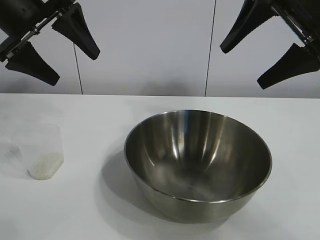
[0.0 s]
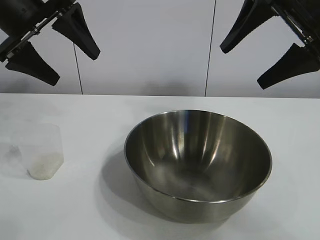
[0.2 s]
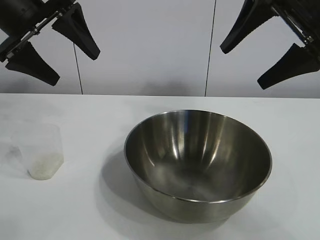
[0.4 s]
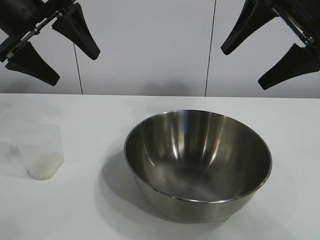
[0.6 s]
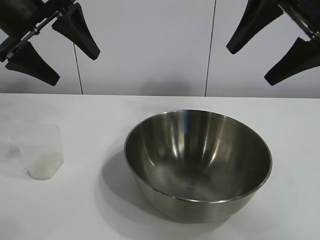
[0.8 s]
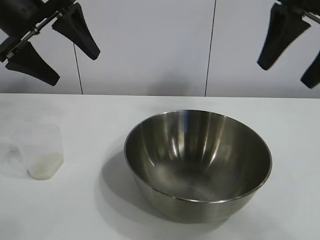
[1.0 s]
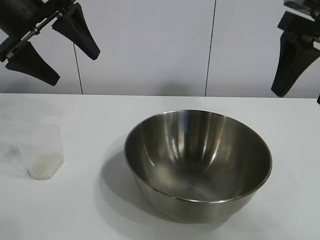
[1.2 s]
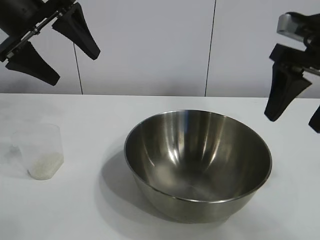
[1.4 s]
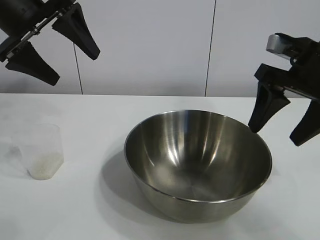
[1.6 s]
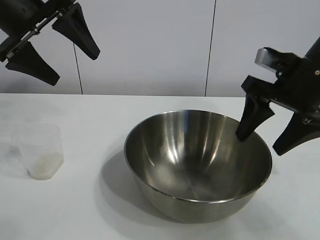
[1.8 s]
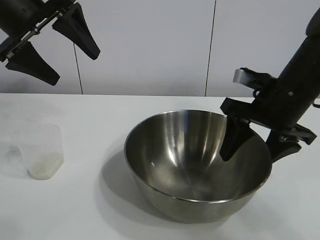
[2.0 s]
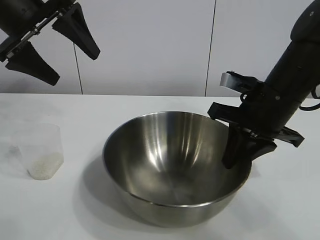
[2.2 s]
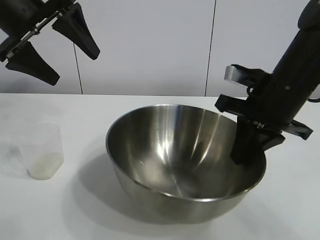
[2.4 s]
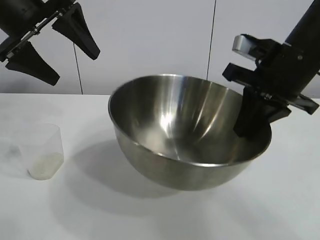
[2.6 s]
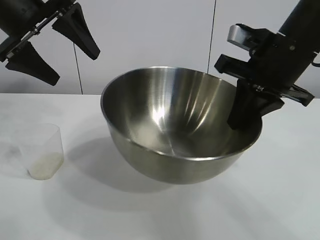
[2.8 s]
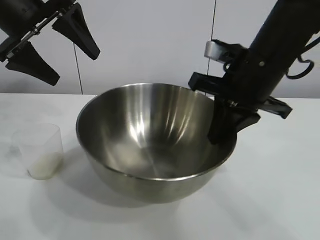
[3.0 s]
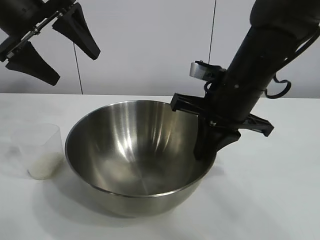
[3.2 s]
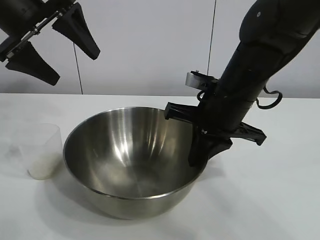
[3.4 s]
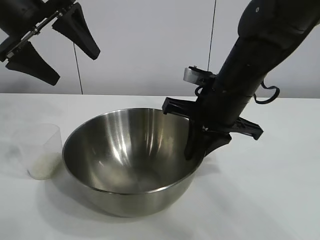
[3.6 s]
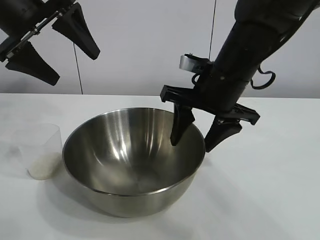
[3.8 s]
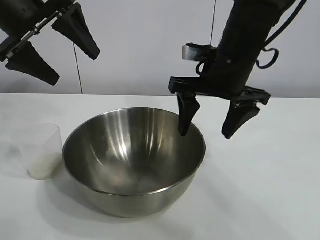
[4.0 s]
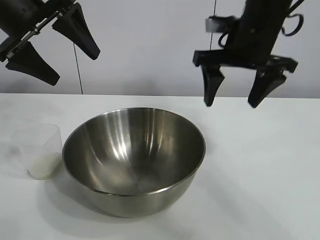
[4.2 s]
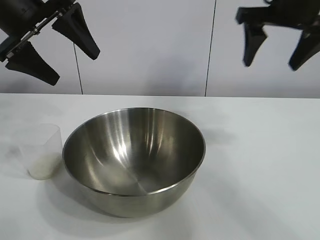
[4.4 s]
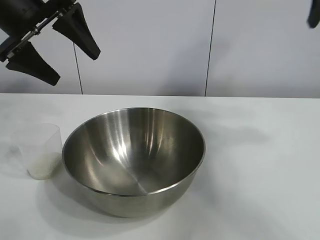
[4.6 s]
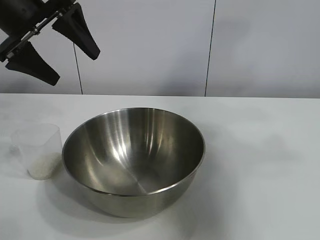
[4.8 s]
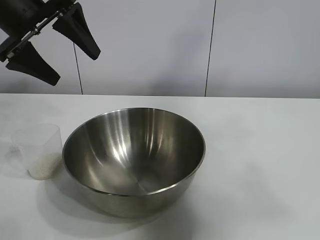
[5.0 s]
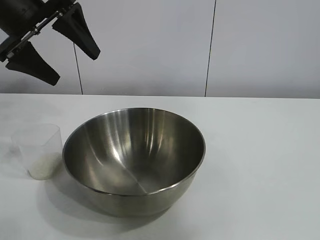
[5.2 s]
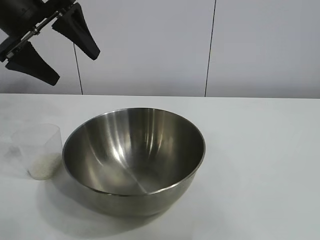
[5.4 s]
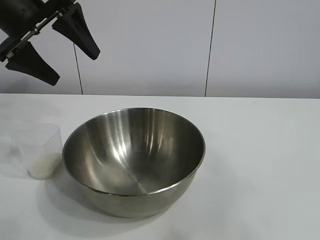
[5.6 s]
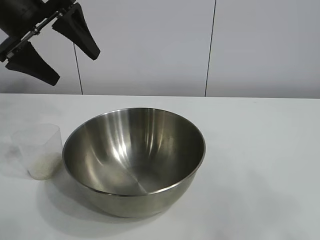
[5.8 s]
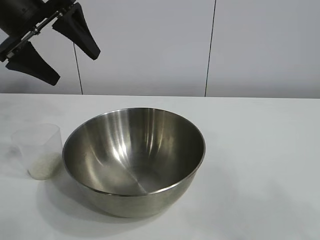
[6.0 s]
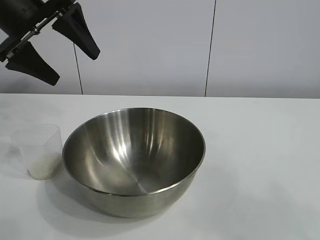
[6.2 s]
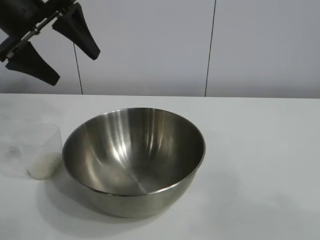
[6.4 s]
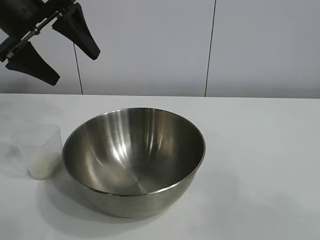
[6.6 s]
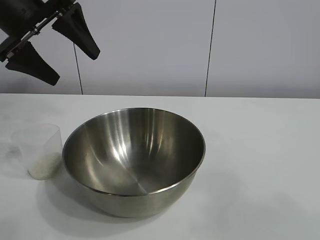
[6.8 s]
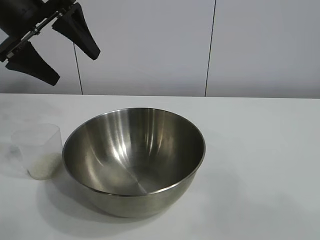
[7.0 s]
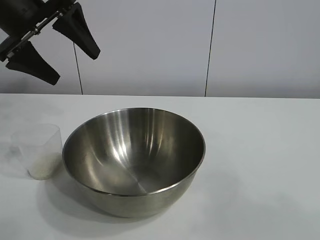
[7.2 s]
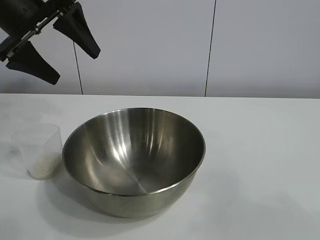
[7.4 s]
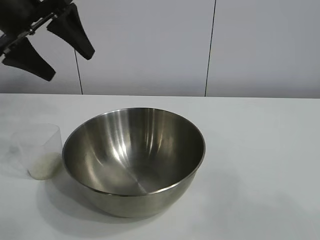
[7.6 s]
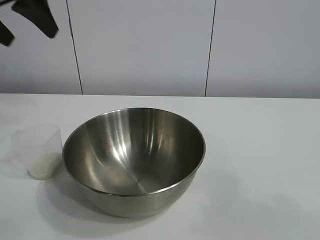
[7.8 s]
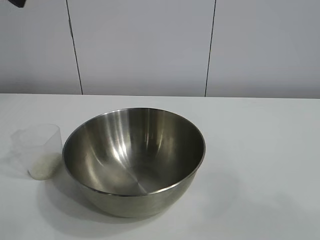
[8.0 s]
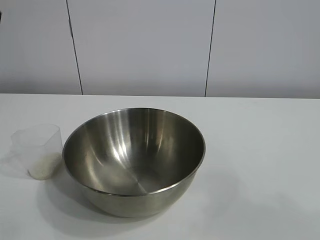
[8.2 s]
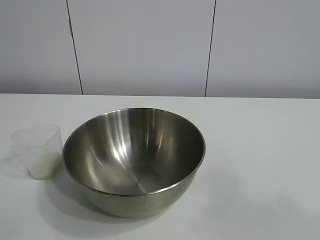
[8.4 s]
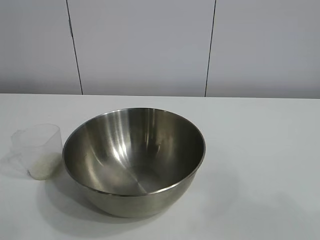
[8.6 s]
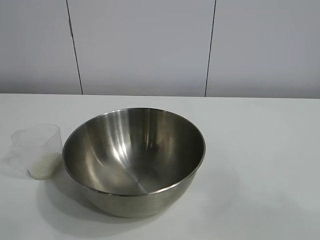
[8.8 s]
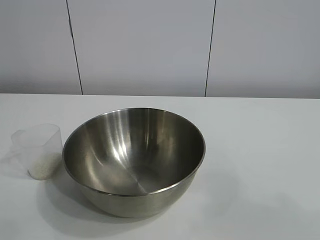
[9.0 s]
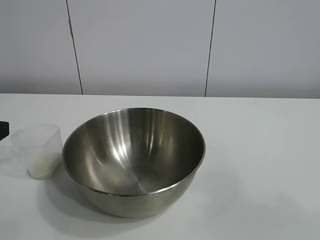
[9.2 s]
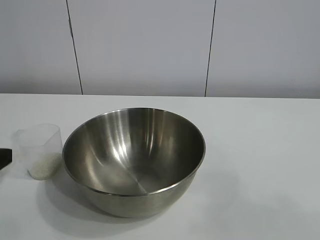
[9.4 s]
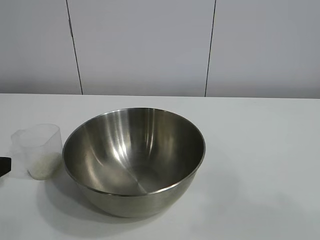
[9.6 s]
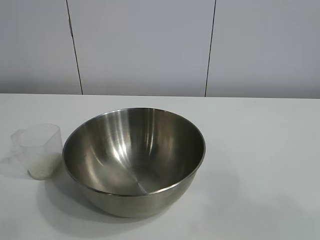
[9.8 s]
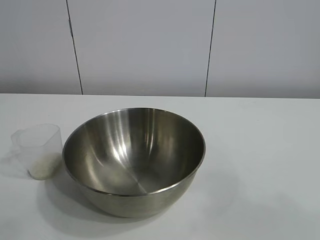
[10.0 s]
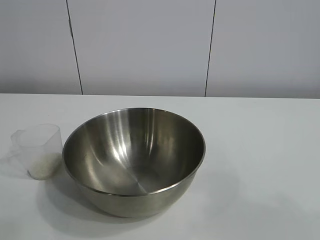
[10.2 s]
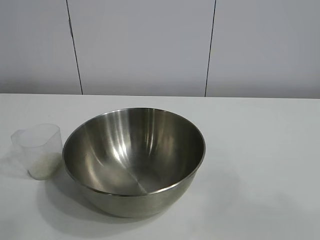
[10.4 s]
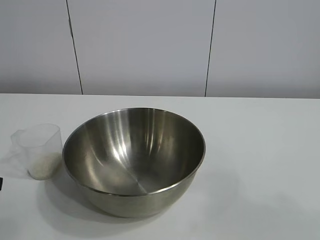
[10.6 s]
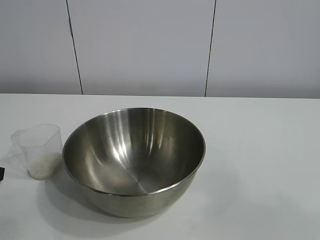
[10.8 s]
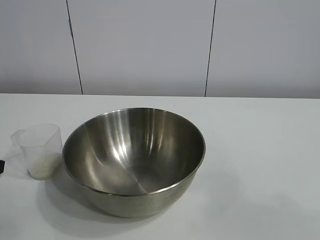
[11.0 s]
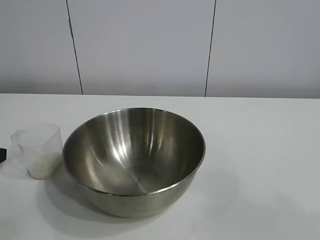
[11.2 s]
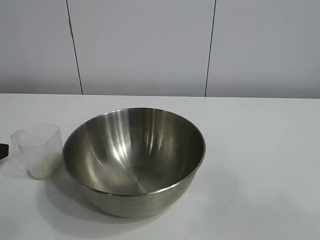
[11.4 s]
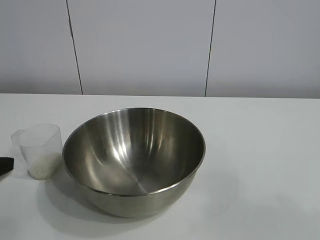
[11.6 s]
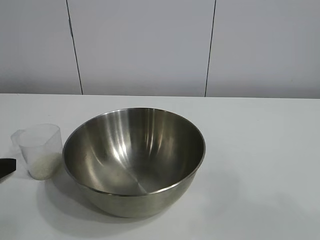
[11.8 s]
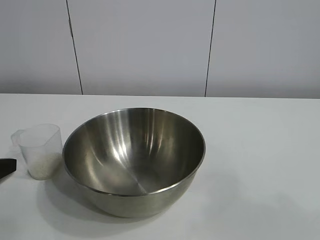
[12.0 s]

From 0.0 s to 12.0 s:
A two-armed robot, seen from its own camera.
Task of the whole recording: the right gripper grasp the rice container and place it in the center of the table, the left gripper grasp the rice scoop and pour the rice into the rice container.
Step, from 0.8 s to 3.8 s: Move the bowl in the center of view with right gripper.

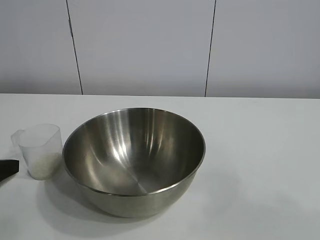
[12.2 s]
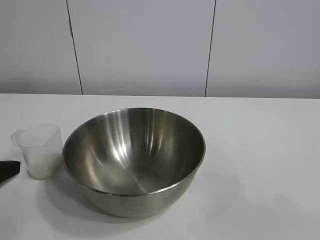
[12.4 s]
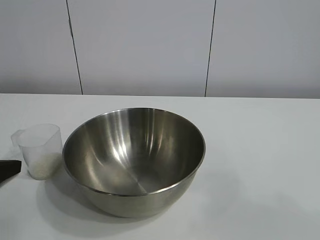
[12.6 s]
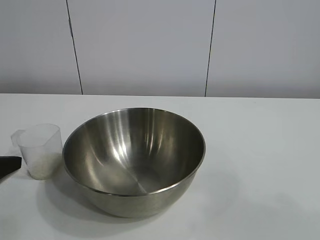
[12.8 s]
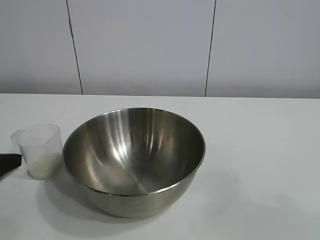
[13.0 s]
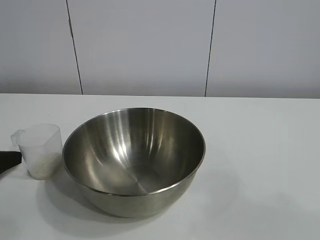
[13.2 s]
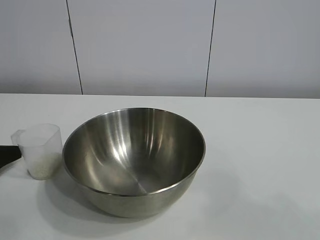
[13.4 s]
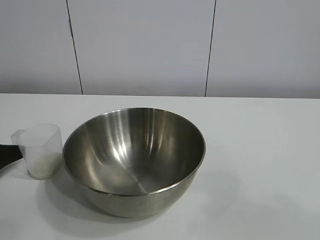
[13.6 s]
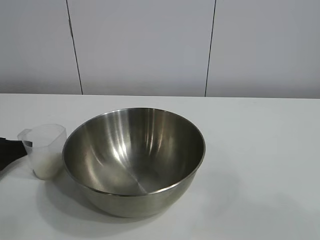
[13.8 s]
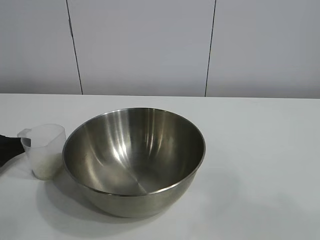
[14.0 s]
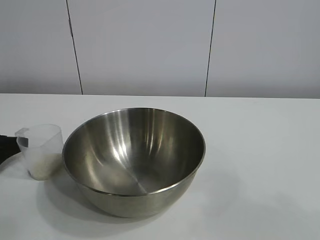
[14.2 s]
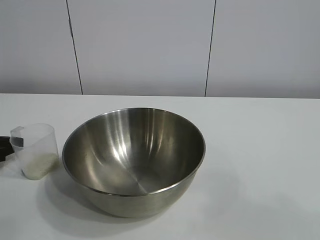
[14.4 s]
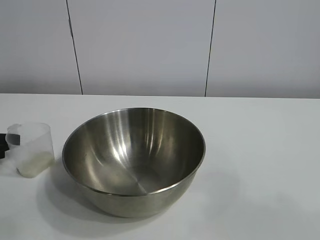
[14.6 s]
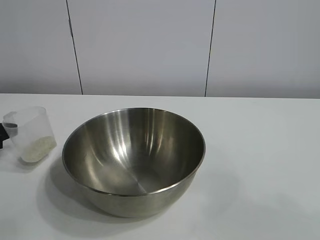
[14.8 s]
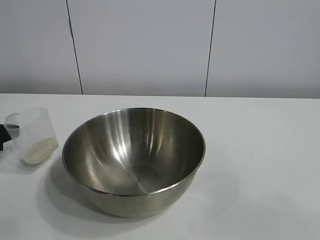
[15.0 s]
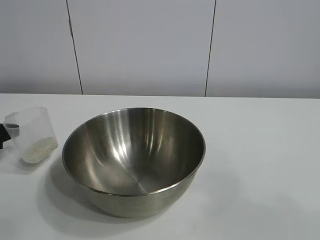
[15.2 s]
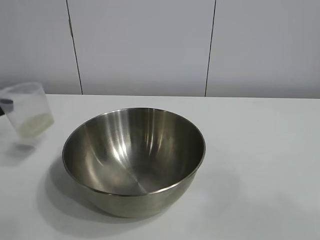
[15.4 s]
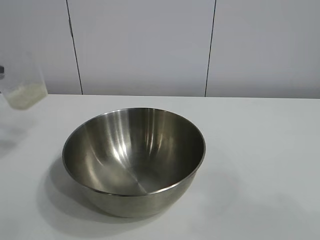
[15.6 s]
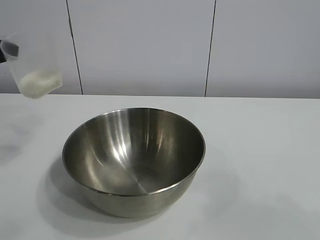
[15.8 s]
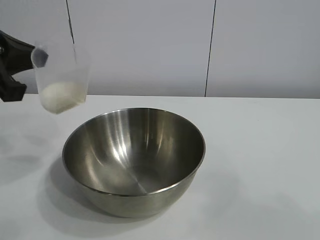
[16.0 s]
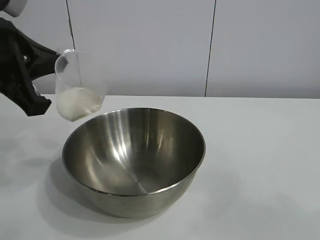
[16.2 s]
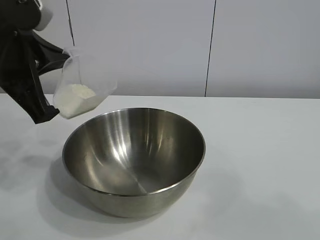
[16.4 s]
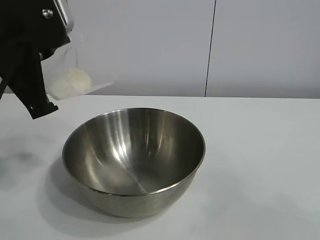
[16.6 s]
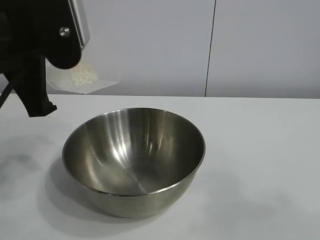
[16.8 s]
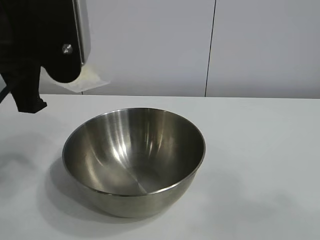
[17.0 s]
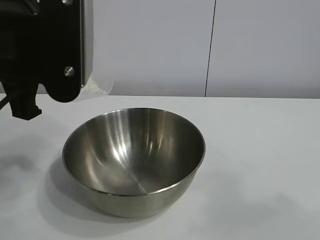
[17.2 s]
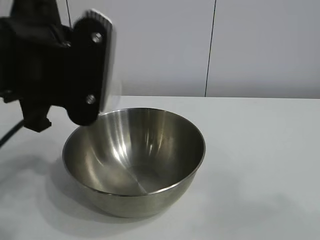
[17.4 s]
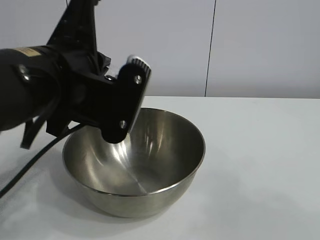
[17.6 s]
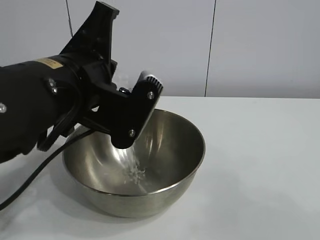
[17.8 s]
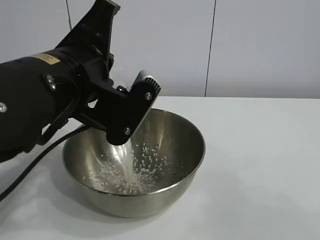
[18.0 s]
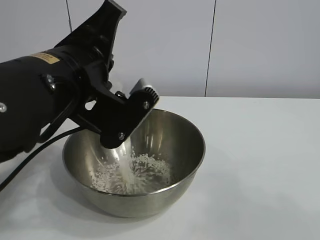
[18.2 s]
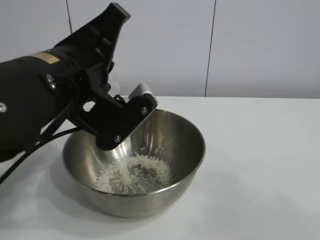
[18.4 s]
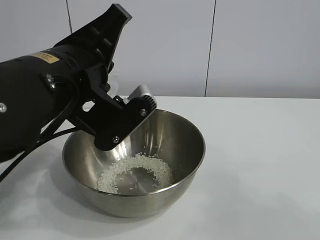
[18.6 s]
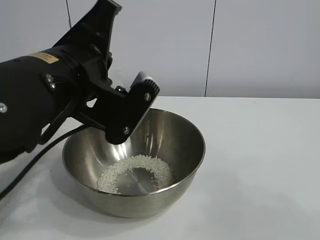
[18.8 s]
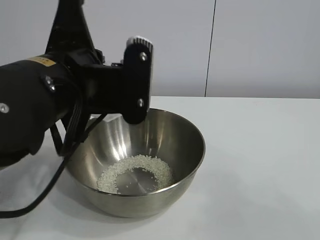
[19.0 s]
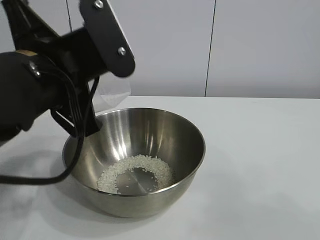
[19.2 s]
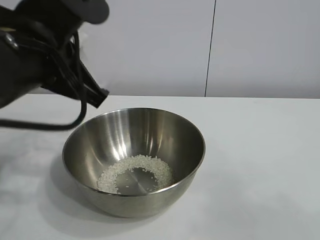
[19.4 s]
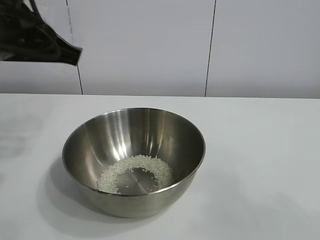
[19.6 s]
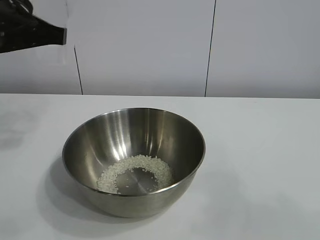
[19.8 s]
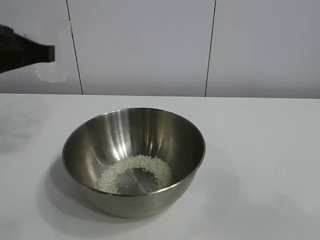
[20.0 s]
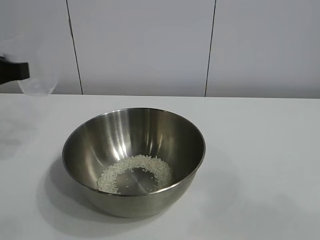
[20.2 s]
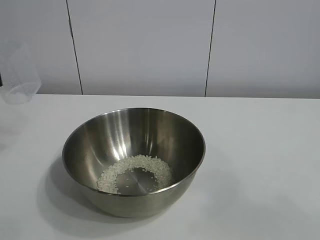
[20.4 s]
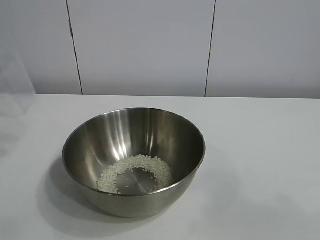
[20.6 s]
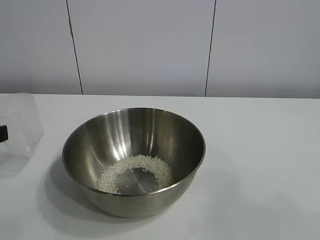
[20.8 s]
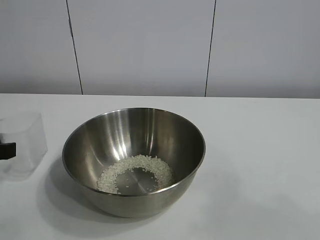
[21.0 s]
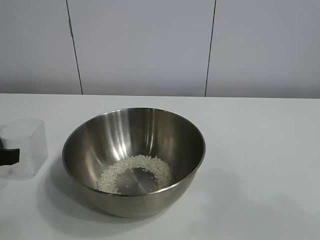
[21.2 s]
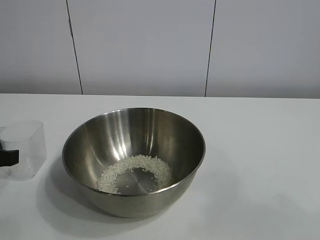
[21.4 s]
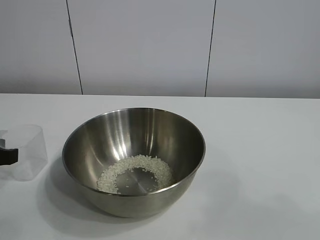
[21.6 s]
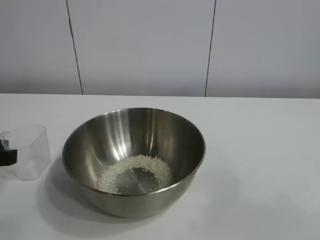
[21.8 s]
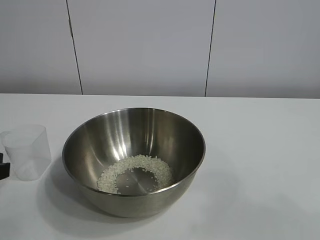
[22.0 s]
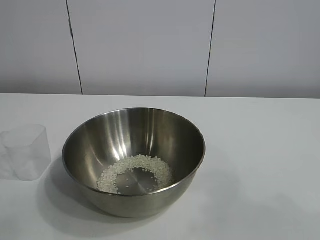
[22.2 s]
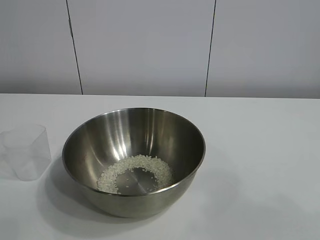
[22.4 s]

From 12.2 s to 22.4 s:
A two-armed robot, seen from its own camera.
Task of the whole recording: the right gripper grasp the rice container and place it in the center of the table, the left gripper grasp the rice scoop and pour the rice into the rice container.
Step, from 12.2 s to 14.4 s: Grasp the cup with rice in it with left gripper.
Step, from 14.8 s to 18.4 s: Pour the rice from the cup into the bowl with the left gripper.
Step, from 18.8 s to 21.8 s: Place the cup on the table with the left gripper.
